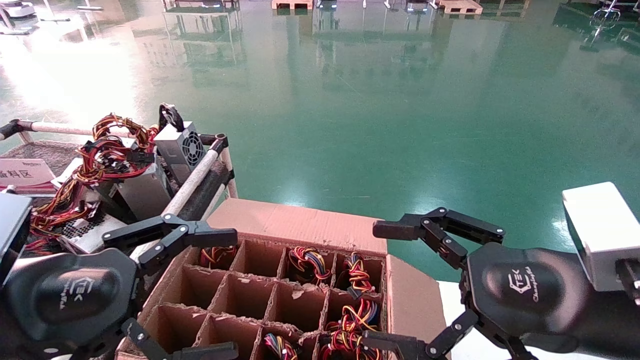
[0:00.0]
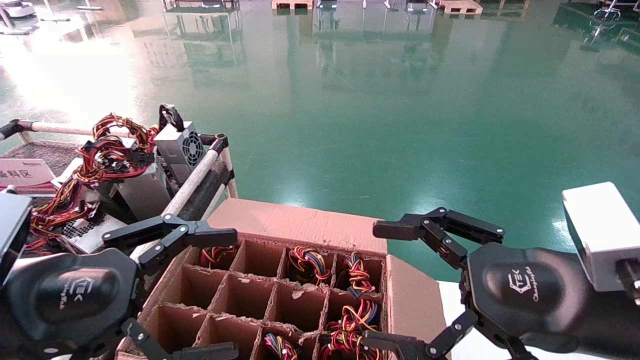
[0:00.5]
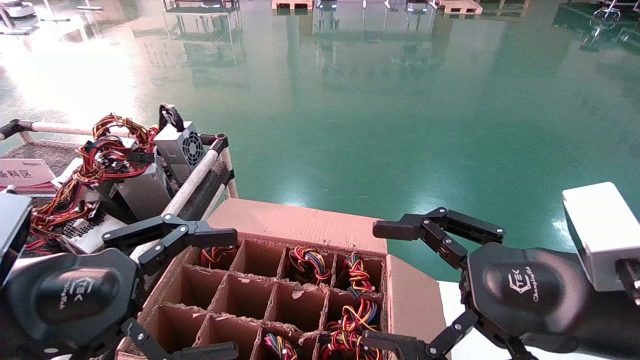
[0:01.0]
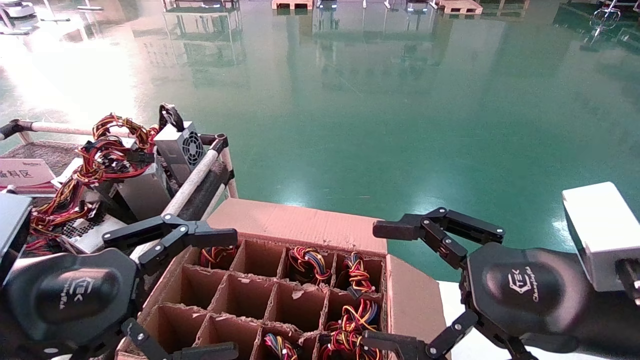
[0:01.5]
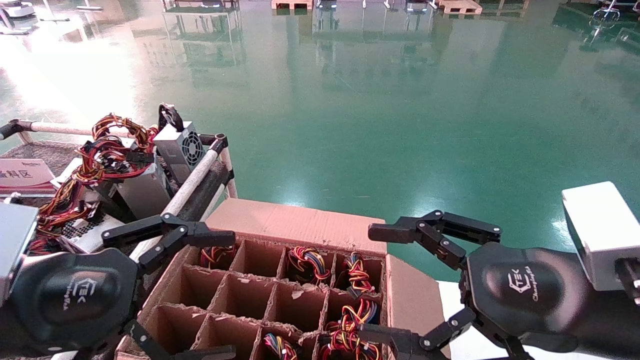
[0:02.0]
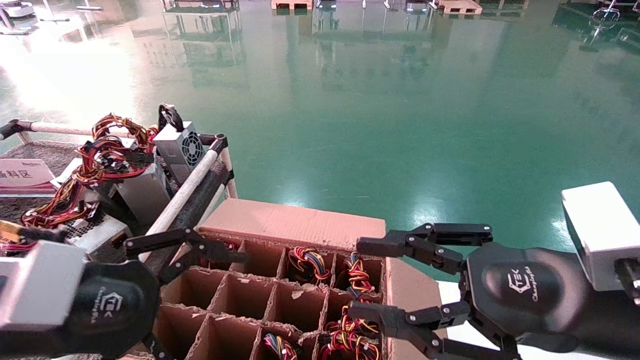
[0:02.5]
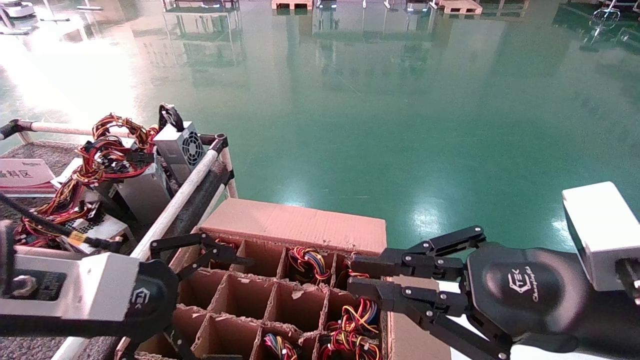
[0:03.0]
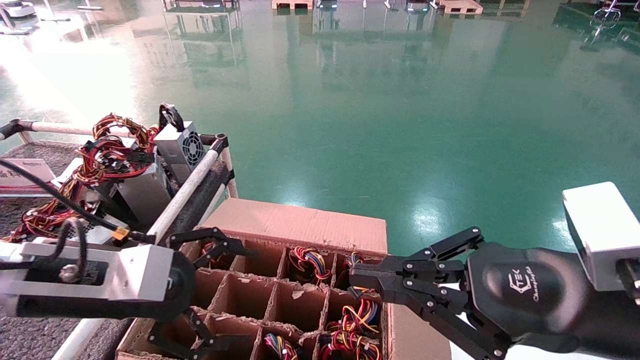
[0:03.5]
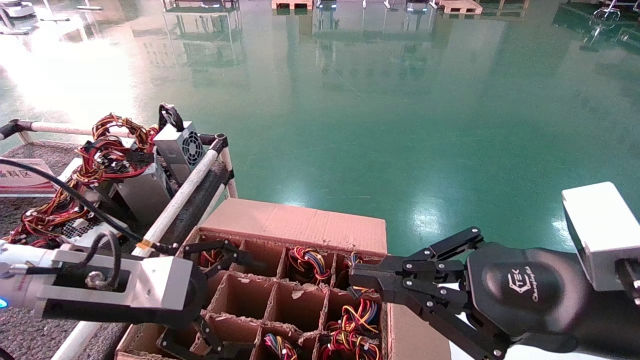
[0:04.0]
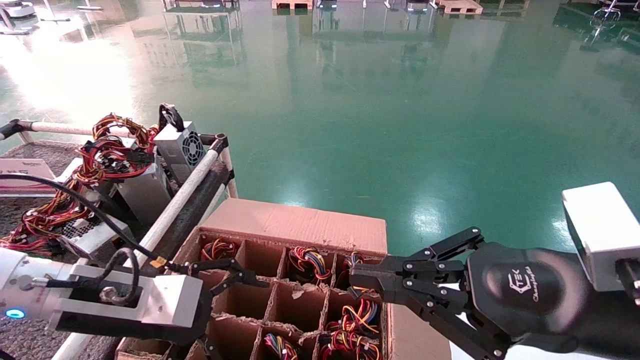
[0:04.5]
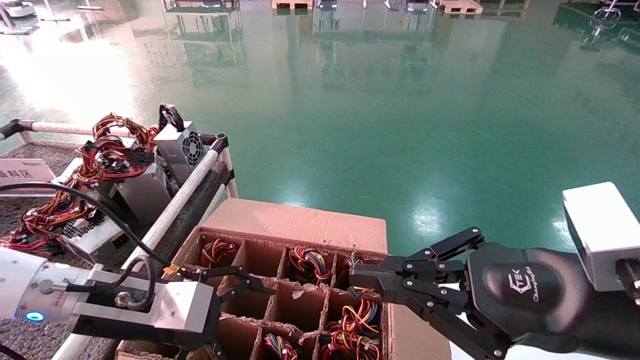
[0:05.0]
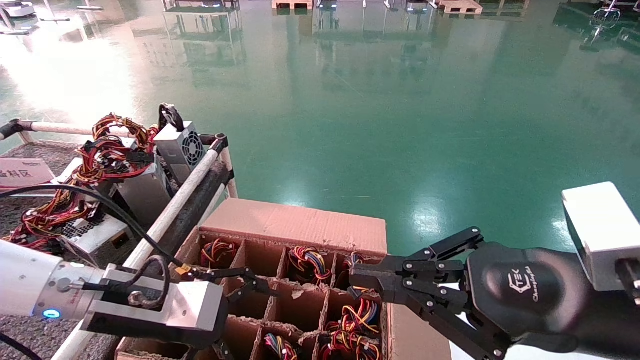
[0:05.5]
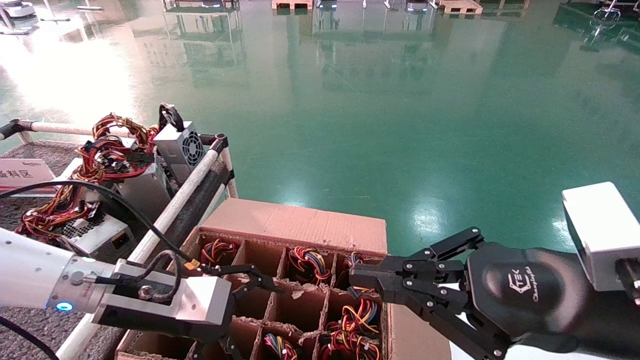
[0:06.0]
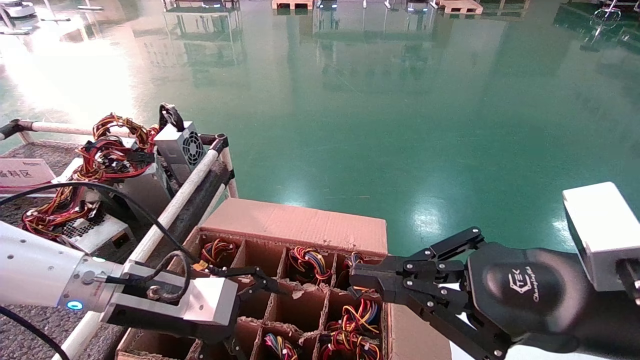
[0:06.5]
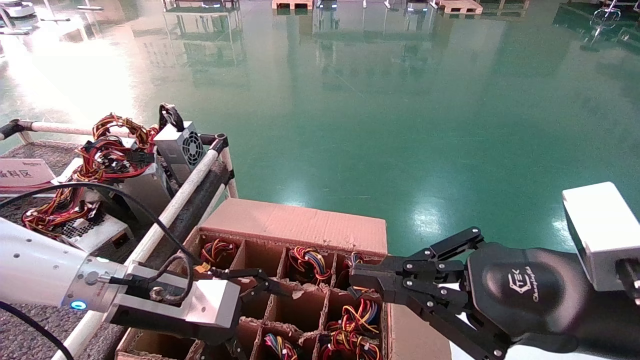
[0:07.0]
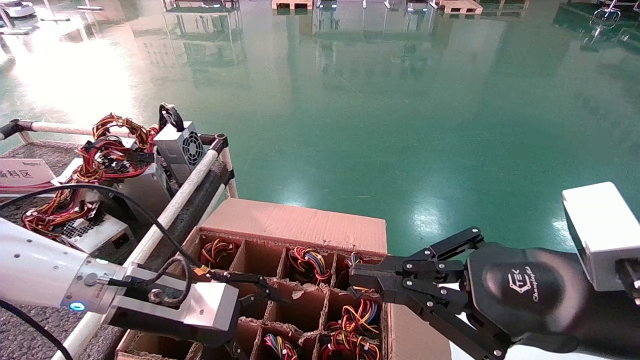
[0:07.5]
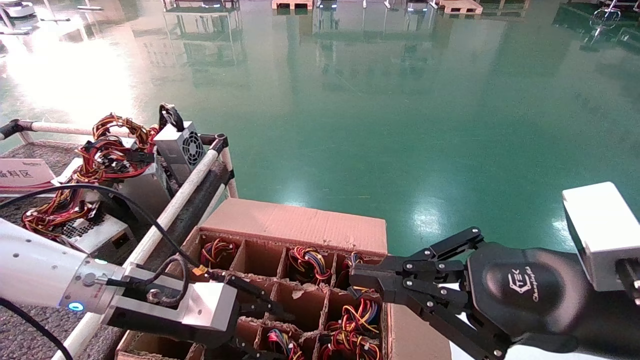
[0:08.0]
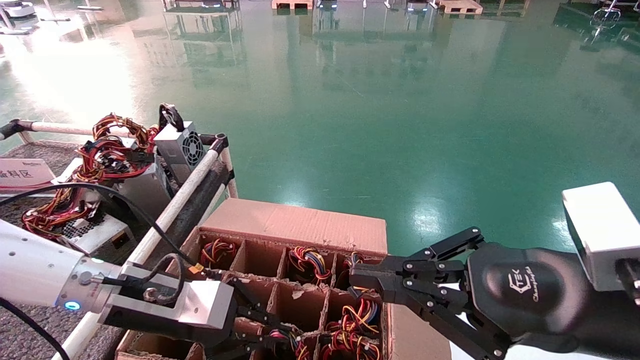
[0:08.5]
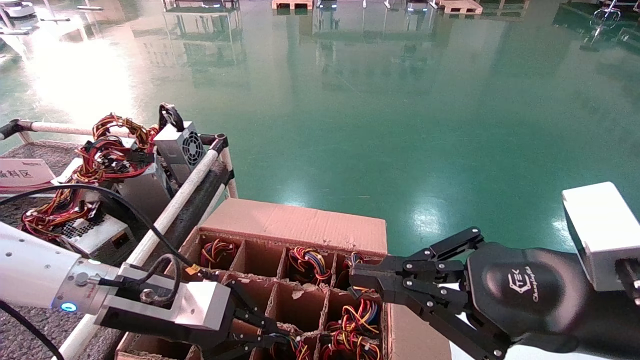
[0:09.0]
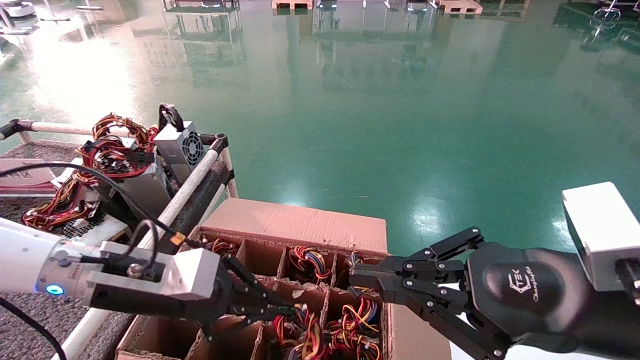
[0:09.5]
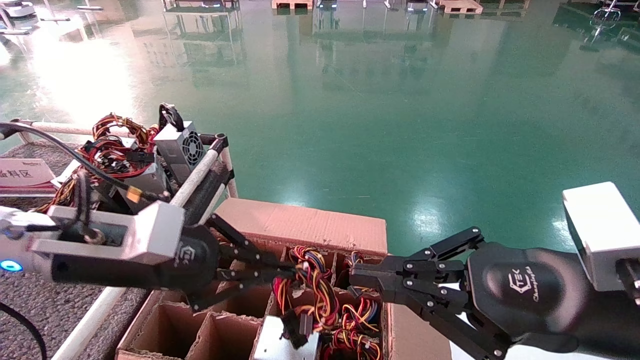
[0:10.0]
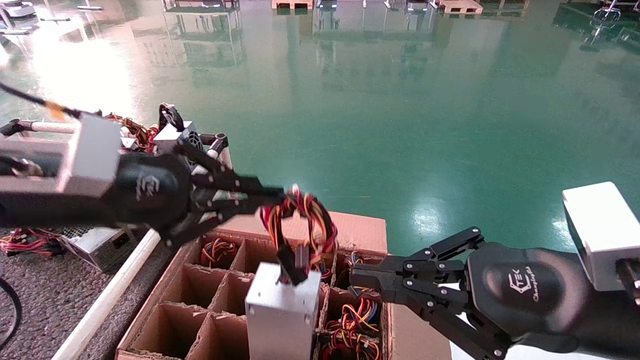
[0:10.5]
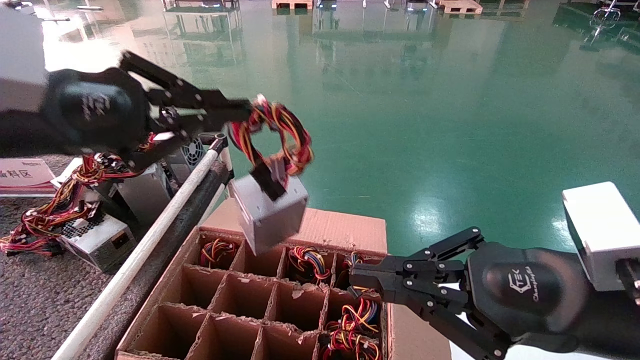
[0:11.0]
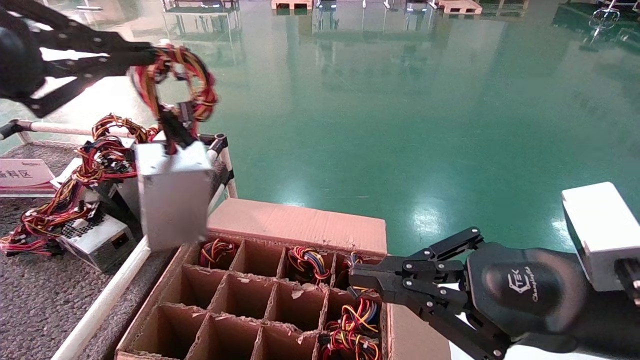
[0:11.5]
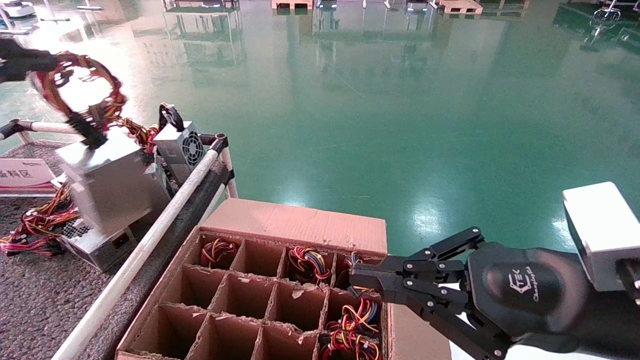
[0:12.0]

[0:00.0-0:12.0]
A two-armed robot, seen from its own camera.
Step, 0:03.0 to 0:09.0: Grab and lift the power supply from the large box.
0:00.0 to 0:02.0: There are only small adjustments of the grippers.
0:02.0 to 0:04.0: The left gripper moves forward, some 10 cm, while the right gripper closes.
0:04.0 to 0:06.0: The left gripper shifts by roughly 5 cm.
0:06.0 to 0:08.0: The left gripper closes.
0:08.0 to 0:10.0: The left gripper heads upward, covering approximately 10 cm, and closes up.
0:10.0 to 0:12.0: The left gripper is displaced to the left, upward and backward by about 30 cm.

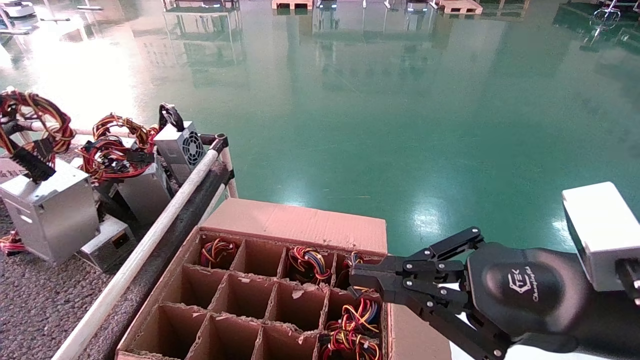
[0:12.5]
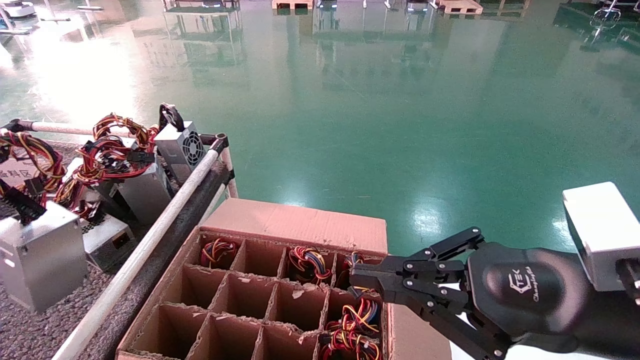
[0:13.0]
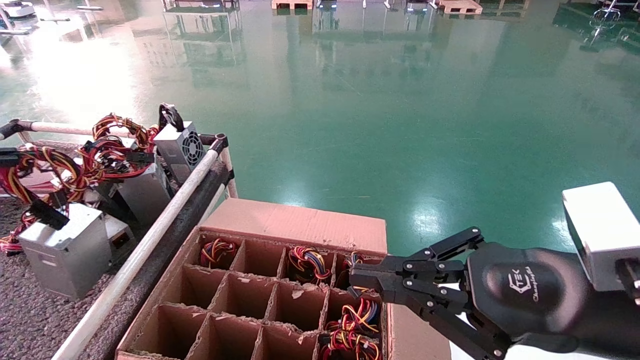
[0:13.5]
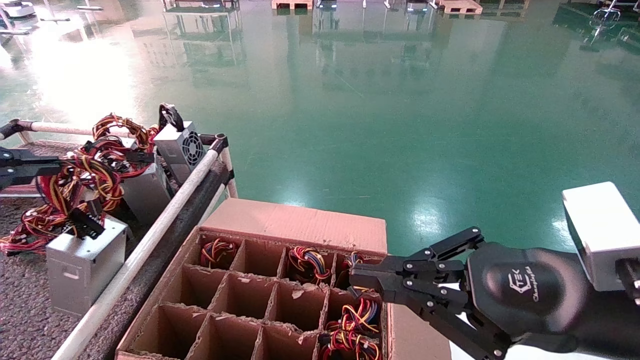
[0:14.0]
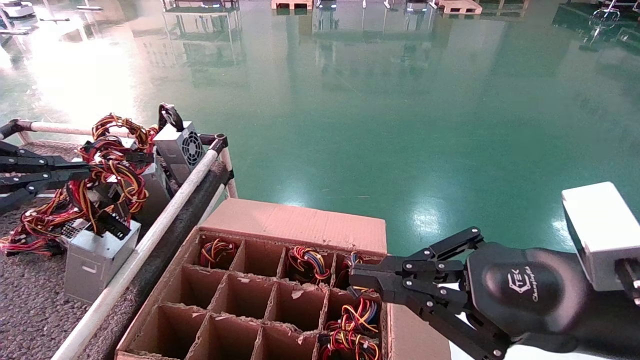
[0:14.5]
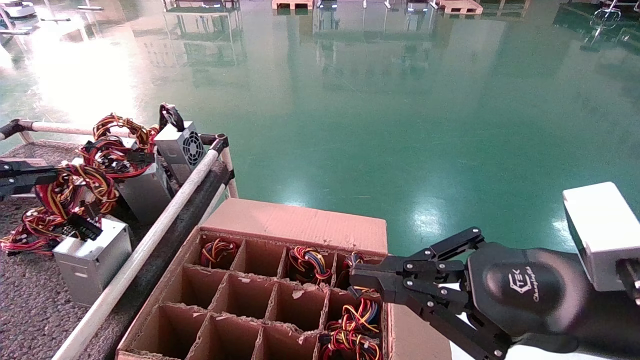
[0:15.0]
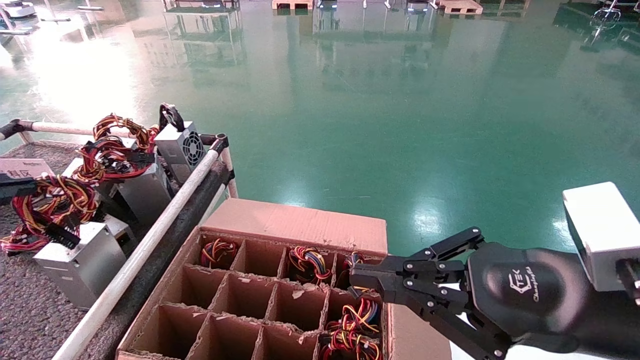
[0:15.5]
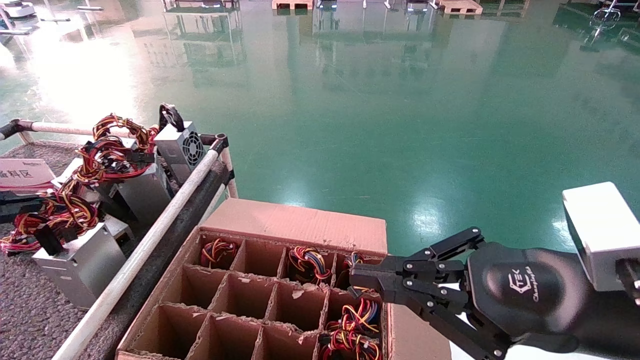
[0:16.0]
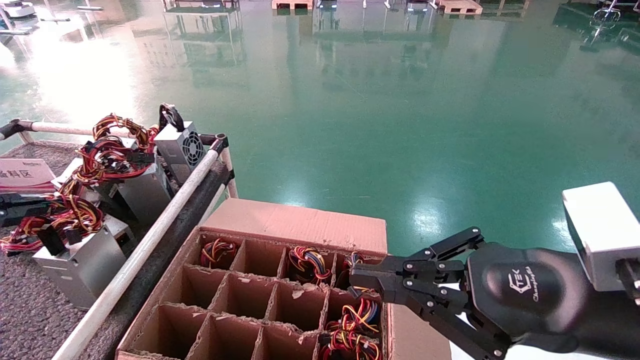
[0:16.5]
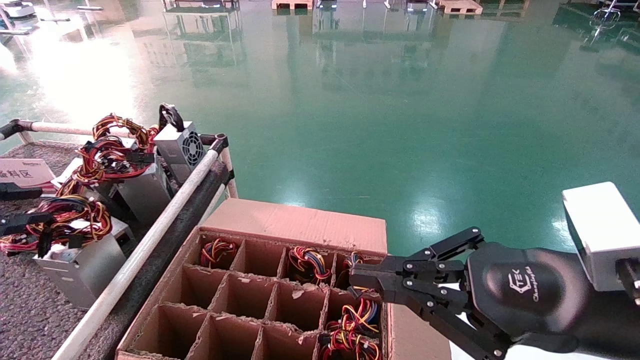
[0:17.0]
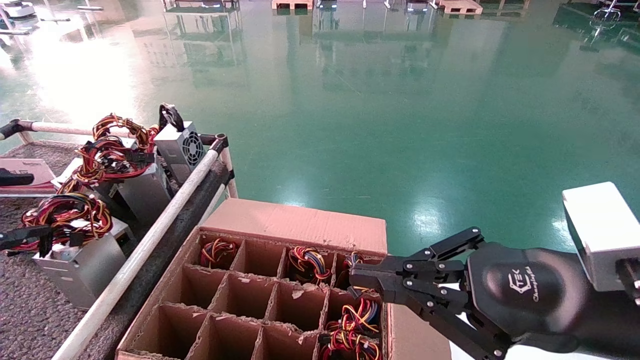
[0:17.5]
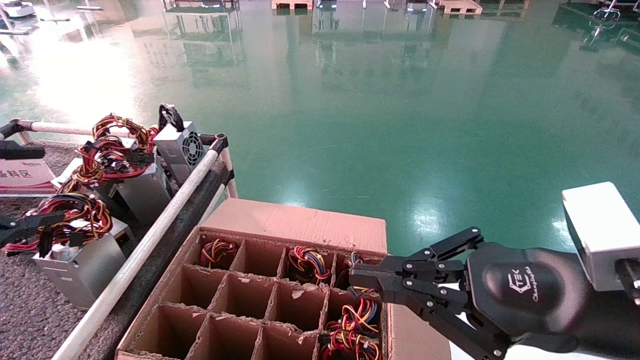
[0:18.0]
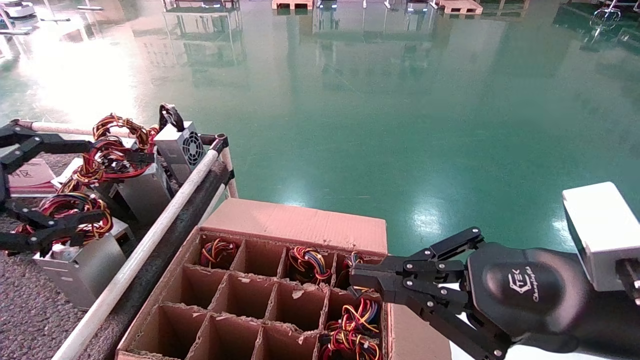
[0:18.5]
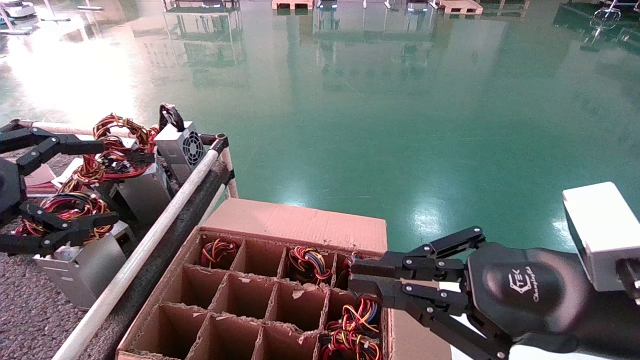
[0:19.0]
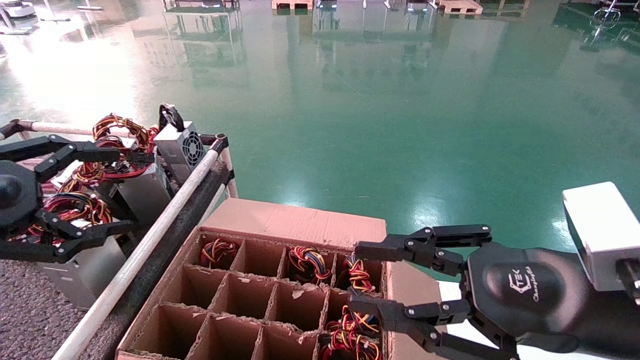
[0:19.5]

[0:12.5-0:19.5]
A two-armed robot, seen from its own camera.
Step, 0:12.5 to 0:17.0: Place the power supply on the operating table.
0:12.5 to 0:14.5: The left gripper heads downward, covering some 5 cm.
0:14.5 to 0:16.0: The left gripper shifts by some 5 cm.
0:16.0 to 0:17.5: The left gripper opens up.
0:17.5 to 0:19.5: The left gripper is displaced to the right by some 10 cm, and opens.
